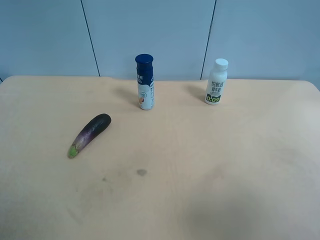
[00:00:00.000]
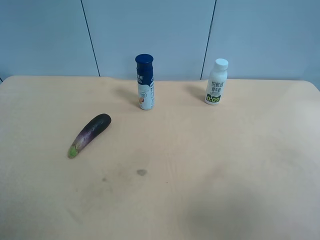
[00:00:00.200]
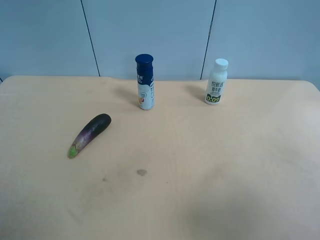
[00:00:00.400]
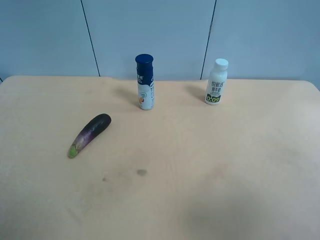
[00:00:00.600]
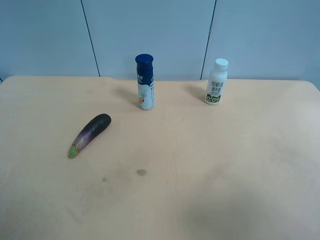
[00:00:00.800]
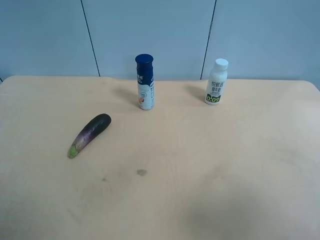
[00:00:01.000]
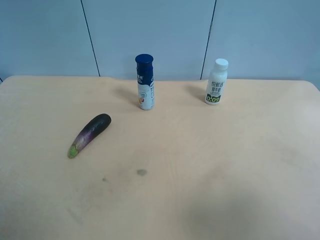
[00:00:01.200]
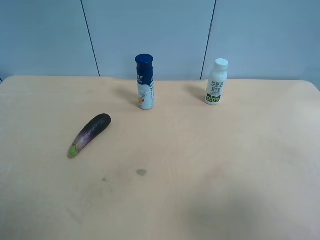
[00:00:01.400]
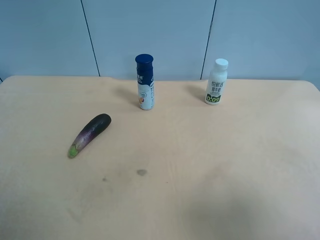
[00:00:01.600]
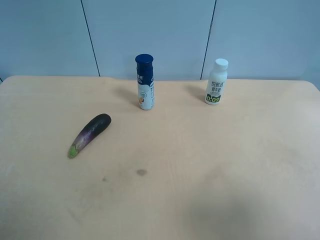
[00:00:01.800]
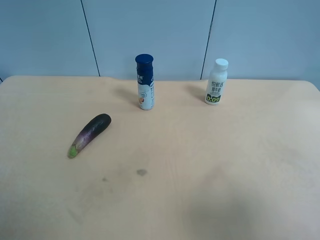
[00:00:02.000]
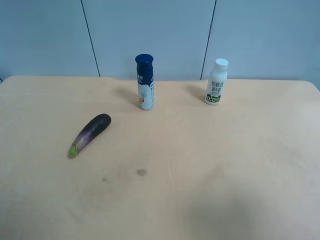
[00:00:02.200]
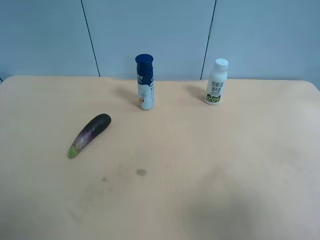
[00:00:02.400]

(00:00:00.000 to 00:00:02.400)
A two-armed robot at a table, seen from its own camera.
Task of the whole recording: use the right gripper to pick up the item and transfer it from the right gripper to the left gripper.
00:00:01.200 - 00:00:02.400: The two grippers keep their place.
